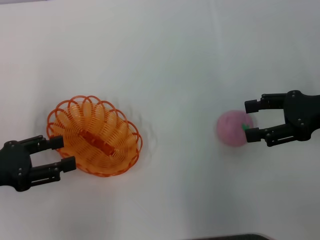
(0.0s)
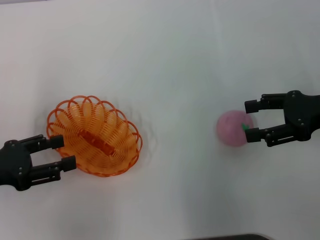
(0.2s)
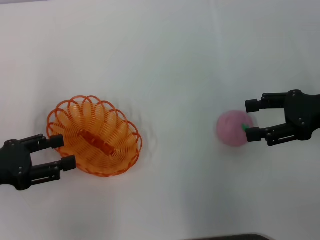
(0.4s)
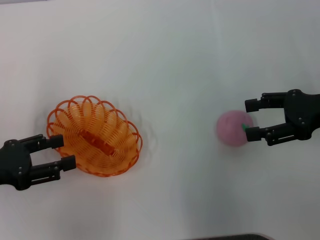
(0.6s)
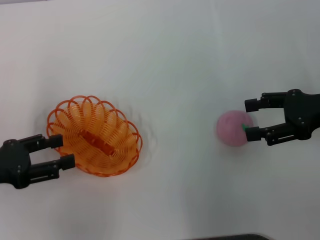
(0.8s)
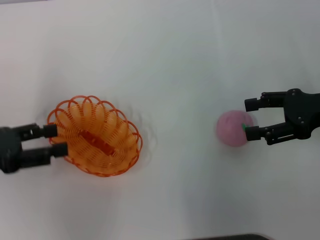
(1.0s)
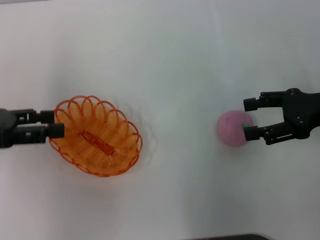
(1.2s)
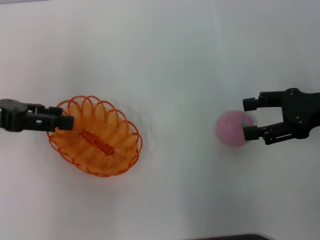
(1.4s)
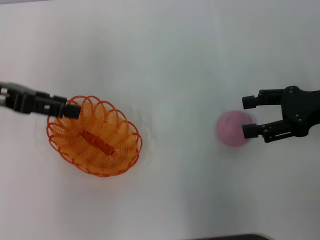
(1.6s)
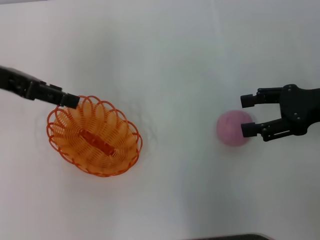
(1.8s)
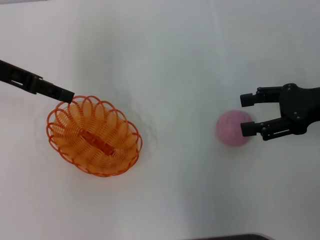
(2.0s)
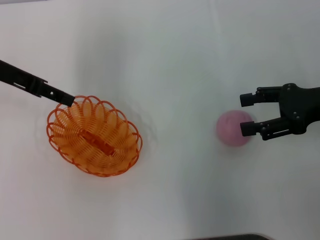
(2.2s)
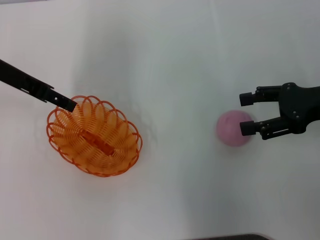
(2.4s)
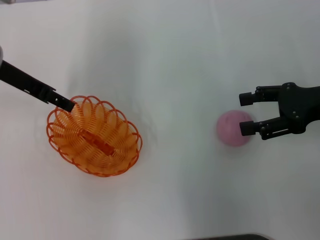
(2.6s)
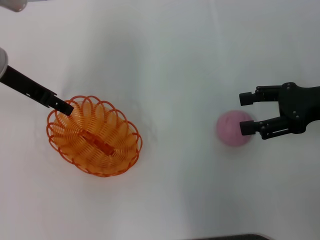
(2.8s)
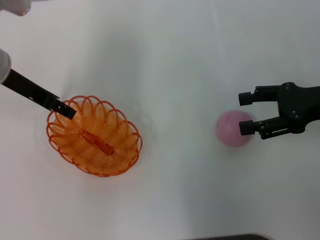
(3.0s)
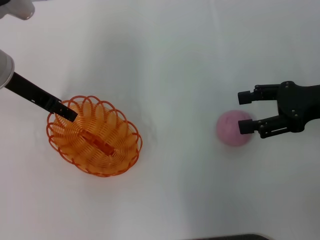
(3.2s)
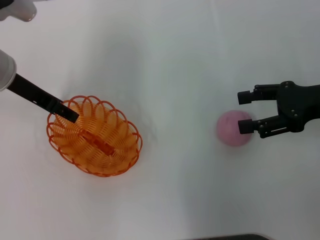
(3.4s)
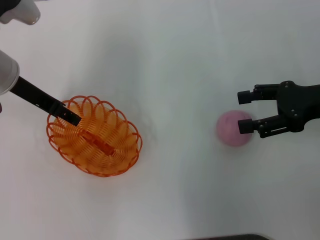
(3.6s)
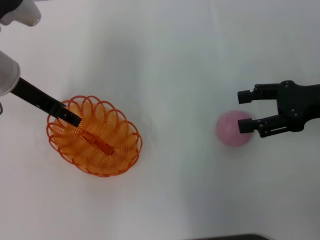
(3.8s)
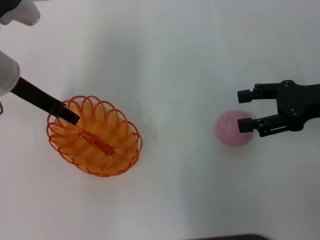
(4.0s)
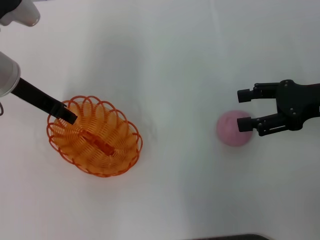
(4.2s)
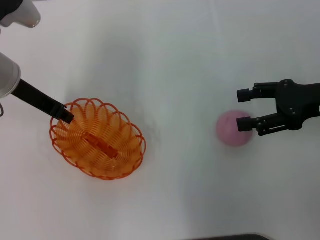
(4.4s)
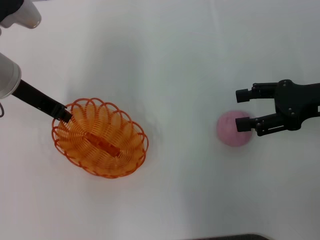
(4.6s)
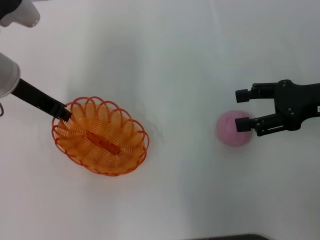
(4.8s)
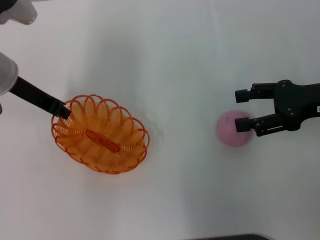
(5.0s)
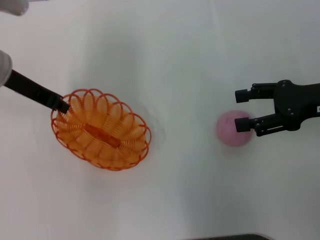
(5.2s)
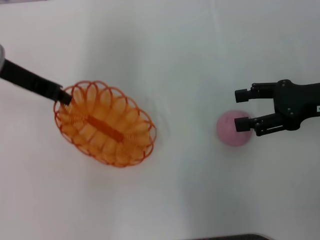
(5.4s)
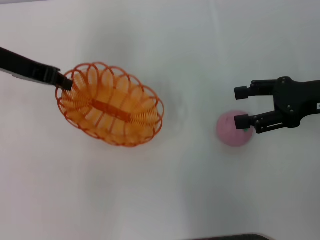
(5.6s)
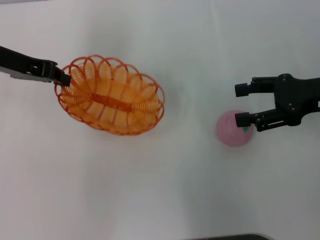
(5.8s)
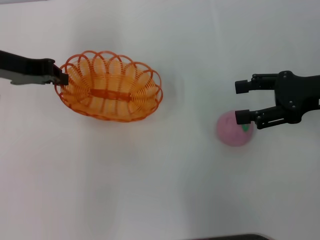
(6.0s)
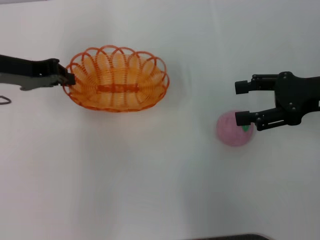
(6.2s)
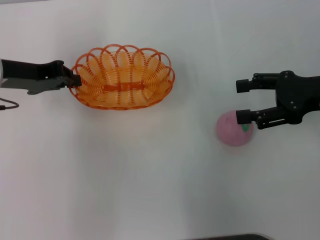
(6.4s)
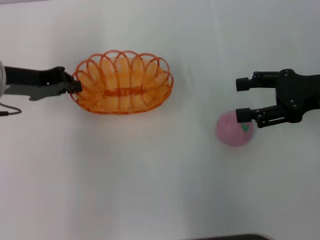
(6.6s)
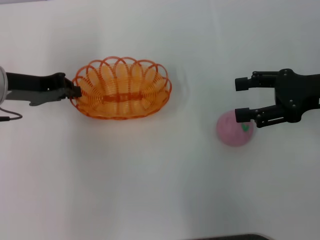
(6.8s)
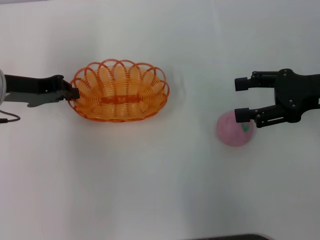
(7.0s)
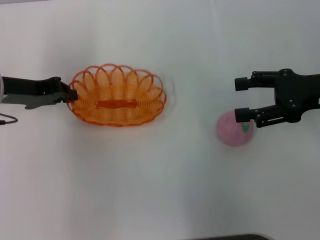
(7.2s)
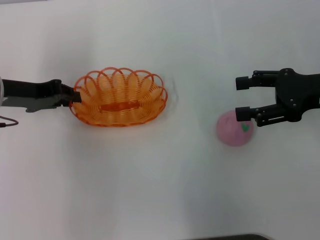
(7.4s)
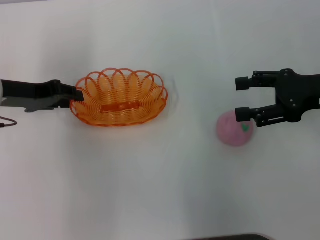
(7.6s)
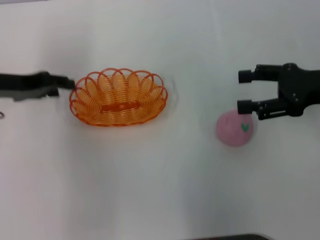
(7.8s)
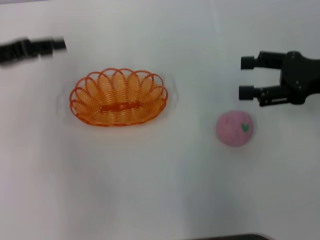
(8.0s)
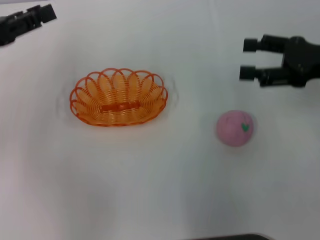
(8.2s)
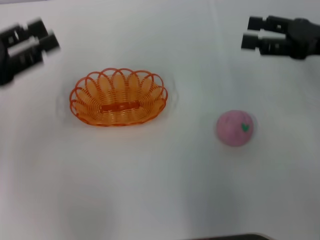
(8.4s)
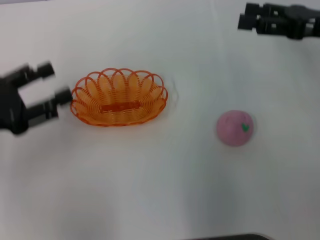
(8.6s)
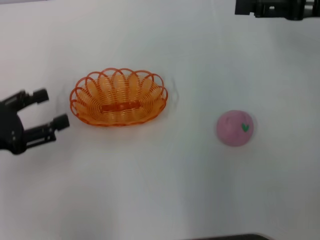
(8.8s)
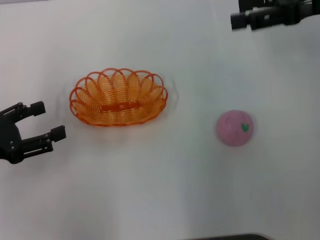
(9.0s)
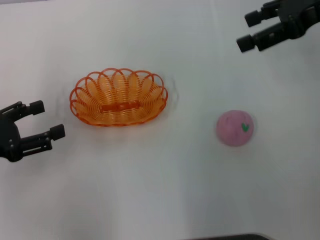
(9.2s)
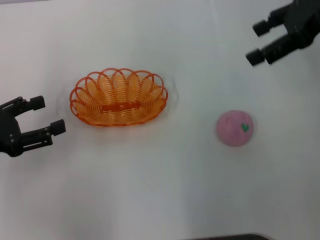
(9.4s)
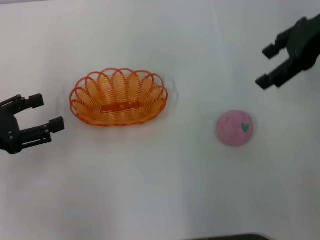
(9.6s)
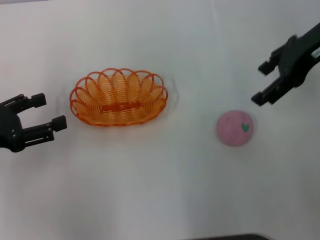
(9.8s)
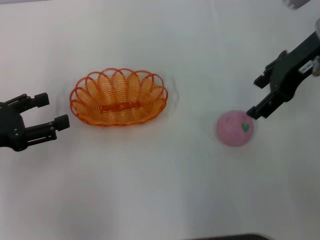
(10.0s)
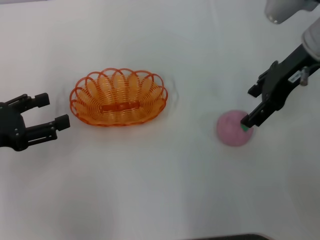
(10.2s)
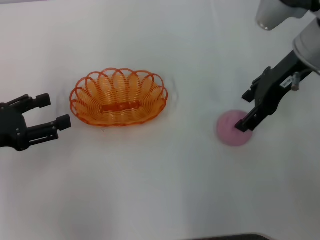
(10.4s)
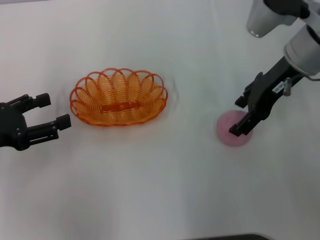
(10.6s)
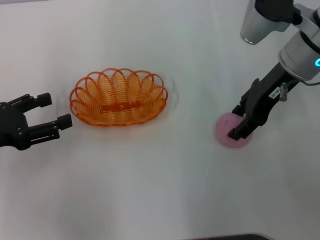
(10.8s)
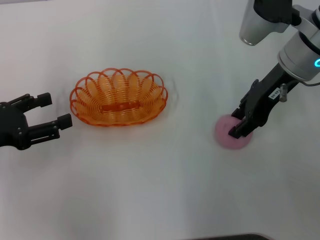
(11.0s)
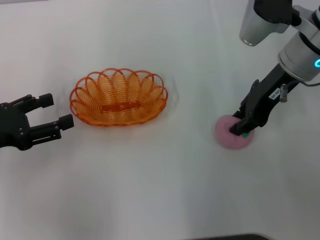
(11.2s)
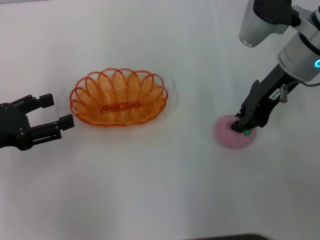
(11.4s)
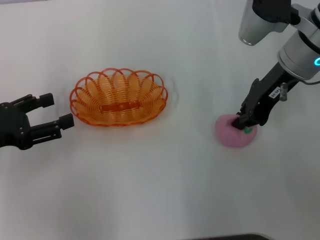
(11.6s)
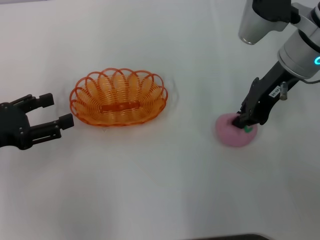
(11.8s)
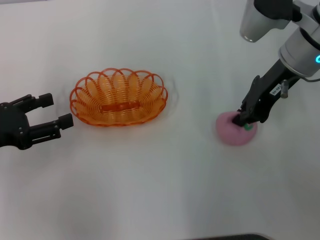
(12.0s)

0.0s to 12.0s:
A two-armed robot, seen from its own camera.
Step, 0.0s to 5.6s: Pick up the basket with the left gripper.
Step, 5.8s to 8.2s: Place the basket in the center of view with the left gripper.
0.0s to 1.6s: The left gripper is displaced upward and forward by some 15 cm.
1.6s to 3.0s: The left gripper travels to the right by some 5 cm.
3.0s to 4.4s: The left gripper closes its fingers.
4.4s to 6.0s: The left gripper closes its fingers.
6.0s to 7.6s: The left gripper shifts about 5 cm downward.
7.6s to 9.0s: The left gripper travels backward and to the left by some 15 cm, and opens. The right gripper is displaced upward and forward by approximately 10 cm.
9.0s to 10.4s: The right gripper moves to the left, some 10 cm.
10.4s to 12.0s: The right gripper closes.

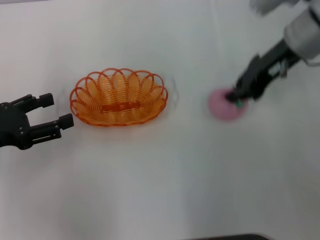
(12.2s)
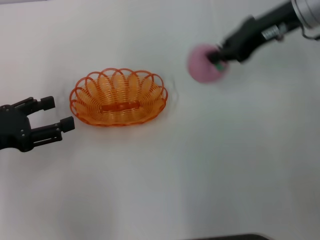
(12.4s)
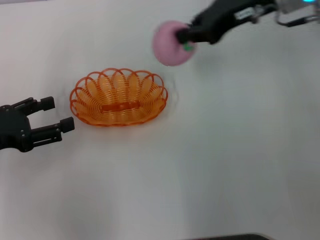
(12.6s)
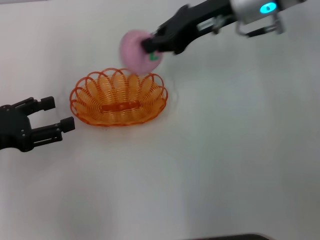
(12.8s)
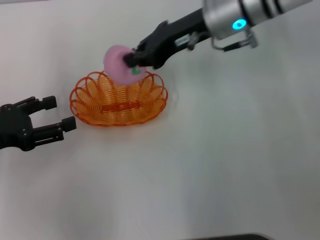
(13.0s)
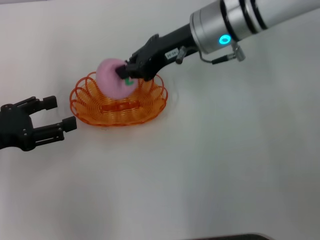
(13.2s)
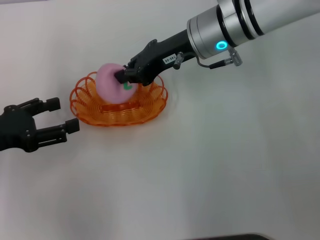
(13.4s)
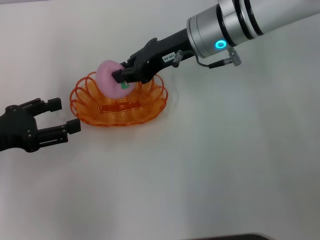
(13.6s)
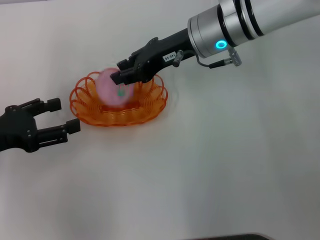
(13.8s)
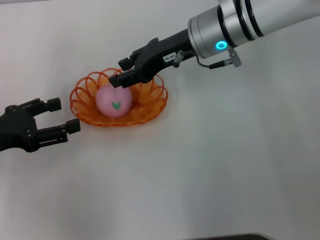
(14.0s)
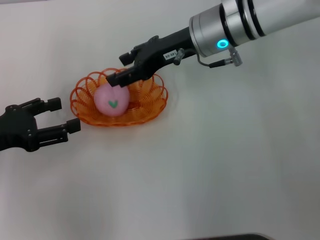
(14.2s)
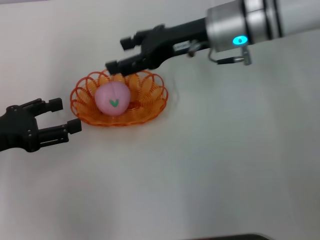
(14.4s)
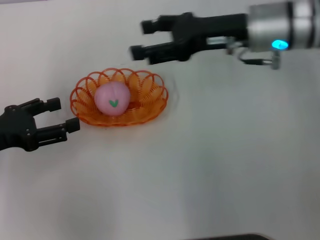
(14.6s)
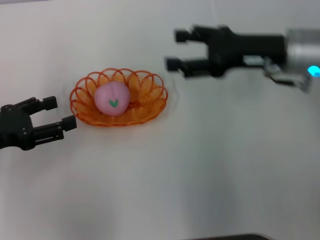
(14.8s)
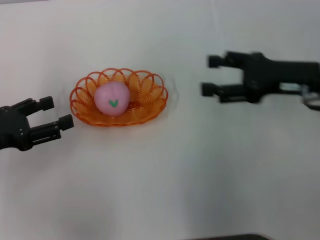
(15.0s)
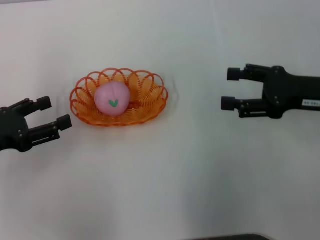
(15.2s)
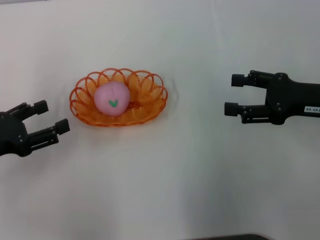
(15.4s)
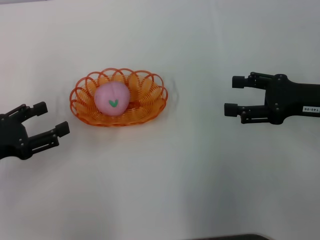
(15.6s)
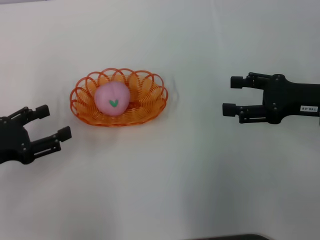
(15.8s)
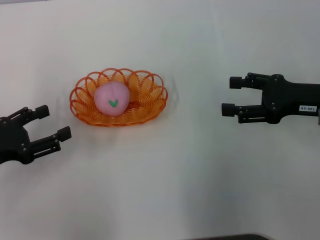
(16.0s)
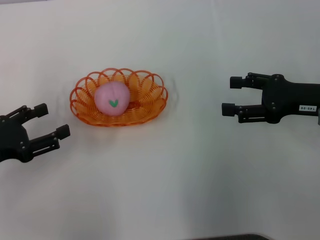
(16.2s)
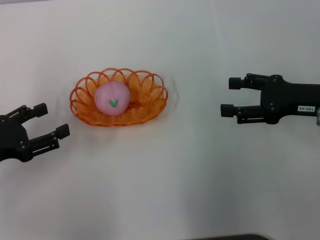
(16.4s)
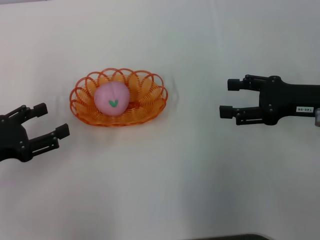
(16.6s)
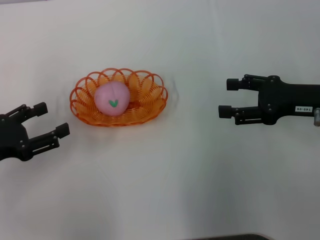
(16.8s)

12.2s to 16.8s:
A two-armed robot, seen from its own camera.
Step, 12.6s to 14.8s: Place the peach into the basket with the right gripper.
12.2s to 13.8s: The right gripper heads to the left, covering about 10 cm.
13.8s to 15.2s: The right gripper moves to the right and backward, approximately 20 cm, and opens its fingers.
15.2s to 16.8s: There are only small adjustments of the grippers.

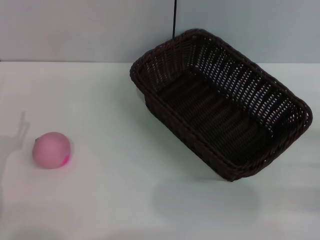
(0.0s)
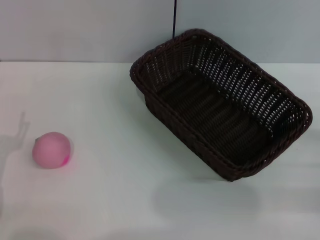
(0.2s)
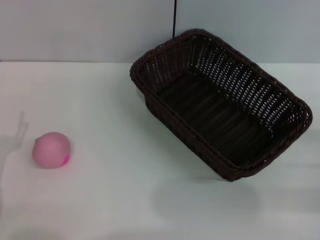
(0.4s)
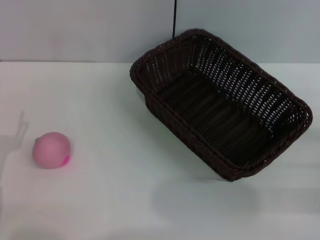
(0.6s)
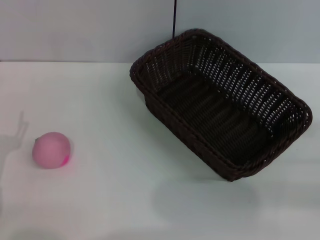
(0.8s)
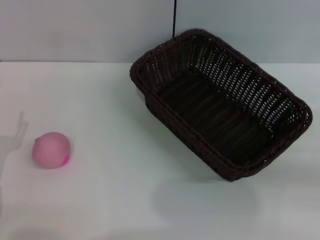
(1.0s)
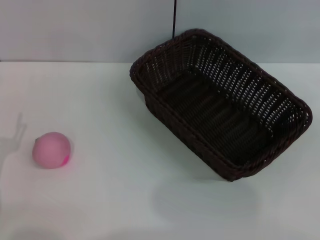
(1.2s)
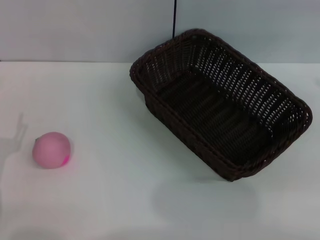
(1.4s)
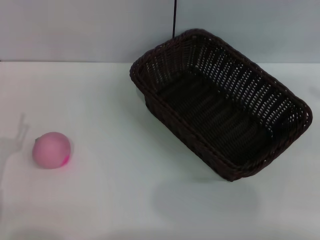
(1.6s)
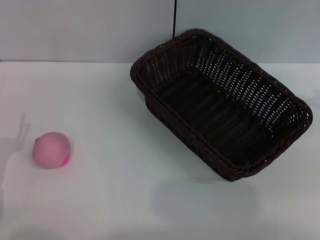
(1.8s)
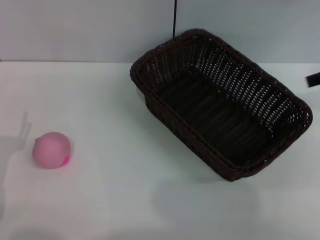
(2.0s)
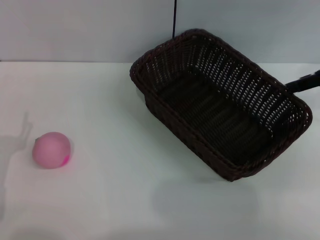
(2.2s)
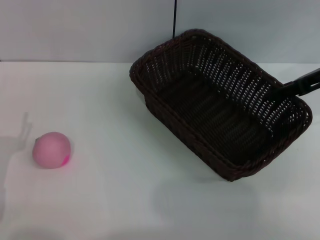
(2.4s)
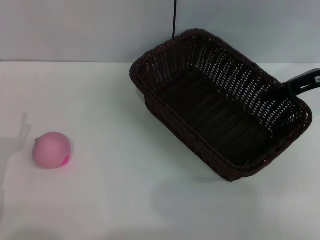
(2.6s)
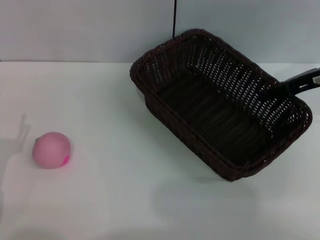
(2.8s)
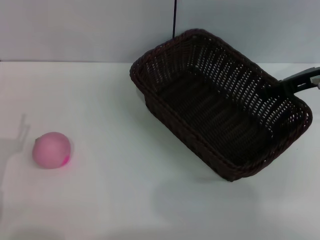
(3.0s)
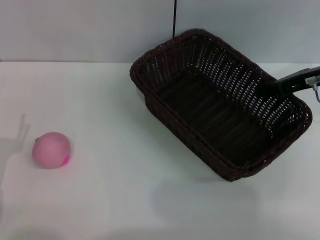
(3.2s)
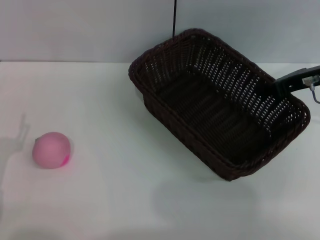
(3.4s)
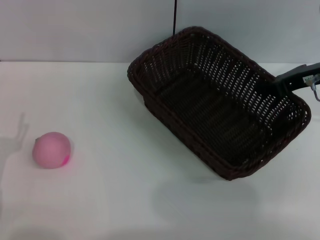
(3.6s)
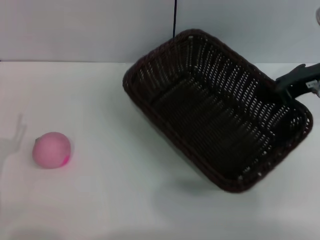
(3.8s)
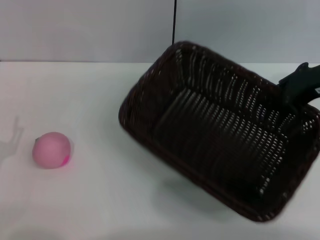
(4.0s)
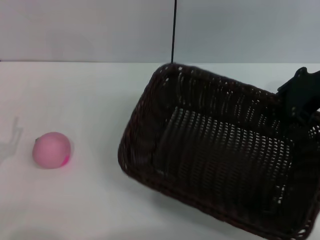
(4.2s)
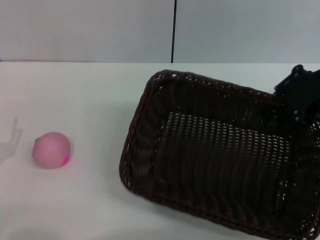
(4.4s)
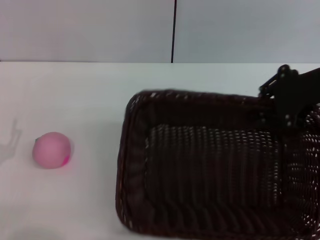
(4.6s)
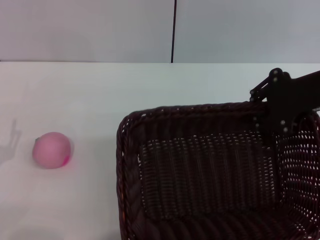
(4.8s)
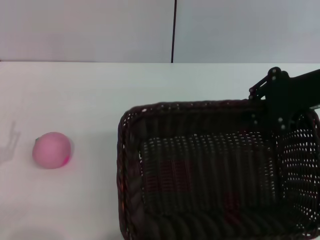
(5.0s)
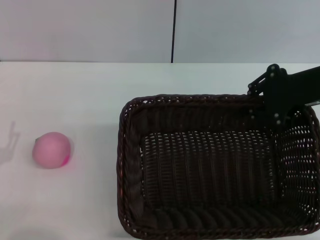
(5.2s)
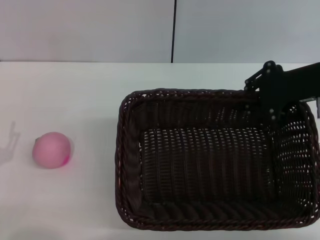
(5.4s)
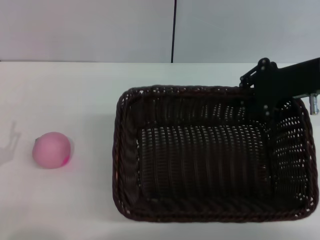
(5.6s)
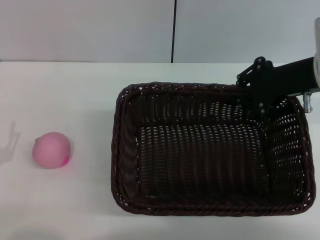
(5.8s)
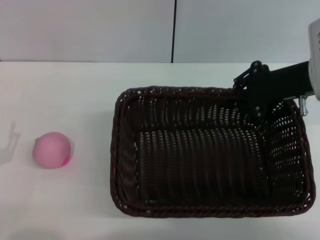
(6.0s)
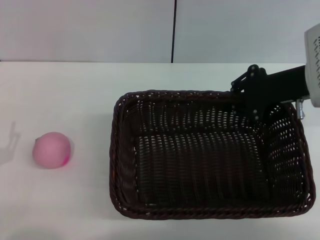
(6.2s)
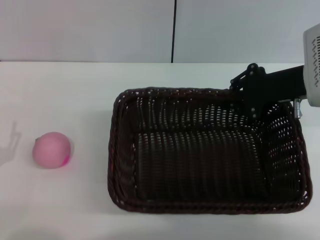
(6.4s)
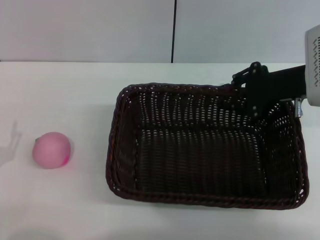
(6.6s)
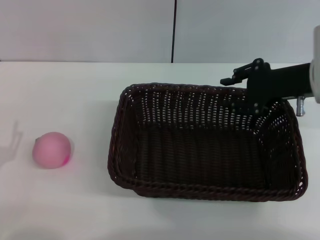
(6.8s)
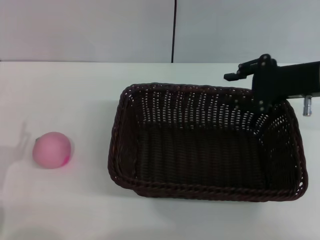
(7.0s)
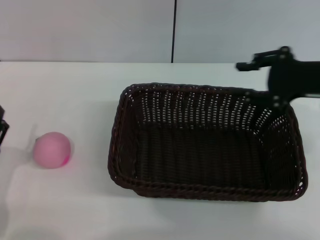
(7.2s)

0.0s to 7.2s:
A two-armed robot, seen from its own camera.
Step, 0.0s to 3.8s: Pick up the dark basket with the right gripper.
1.4s to 2.8s: The right gripper moves to the left, forward and downward, roughly 20 cm.
2.8s to 4.4s: The right gripper heads upward and backward, covering about 10 cm, and closes its fingers.
4.4s to 5.8s: The right gripper shifts by some 5 cm.
5.8s to 7.2s: The right gripper shifts by roughly 5 cm, and opens up.
